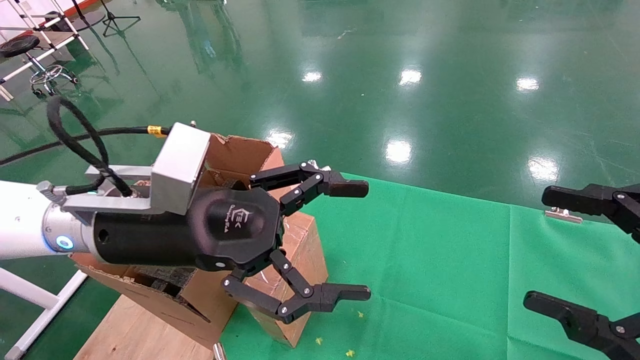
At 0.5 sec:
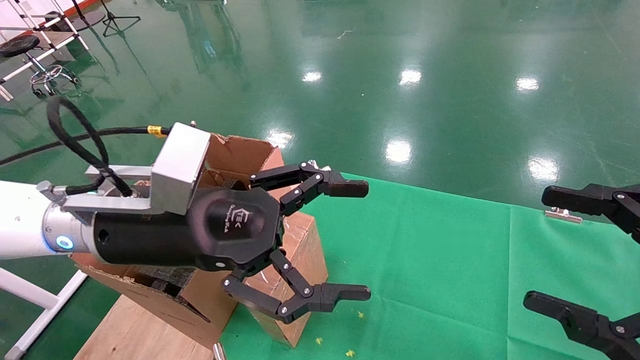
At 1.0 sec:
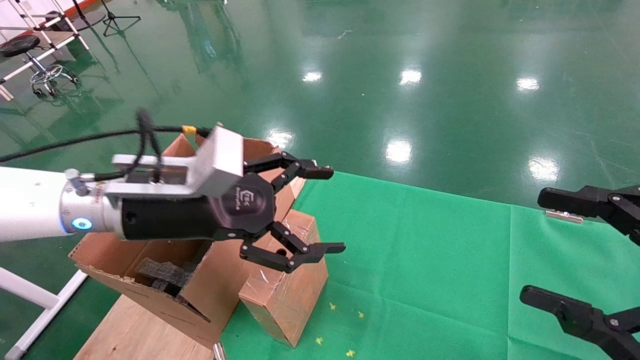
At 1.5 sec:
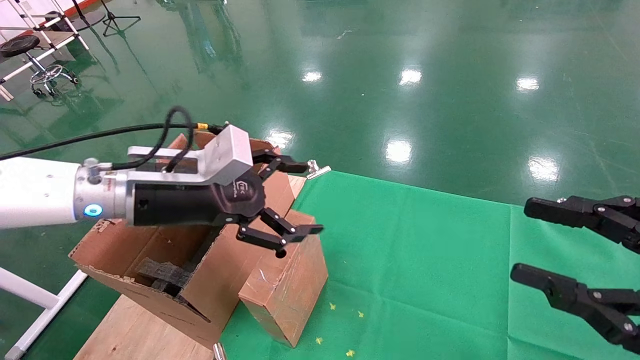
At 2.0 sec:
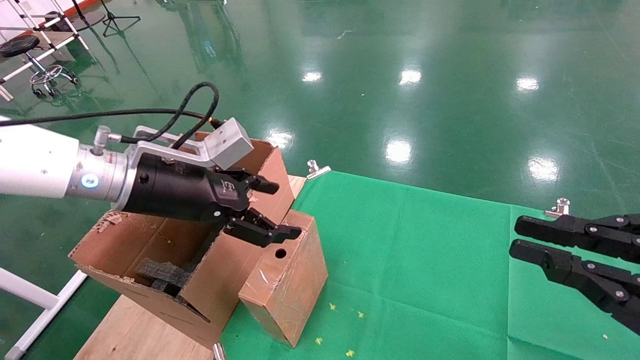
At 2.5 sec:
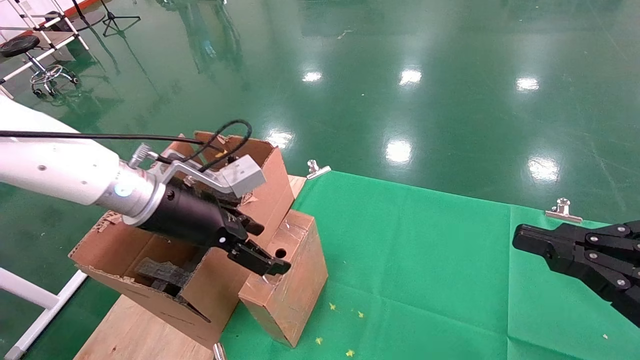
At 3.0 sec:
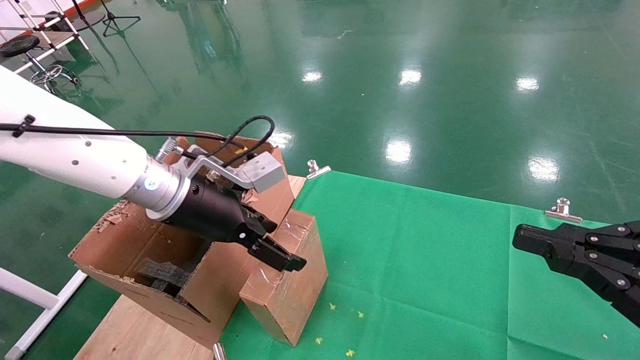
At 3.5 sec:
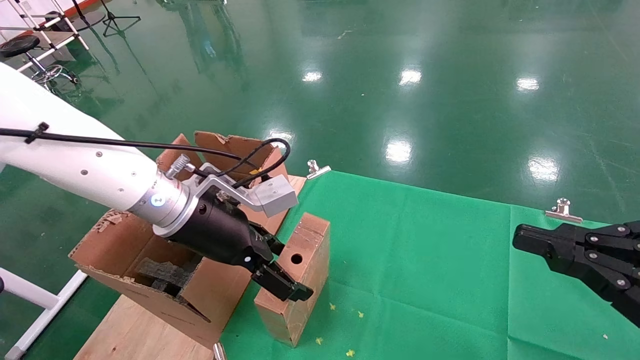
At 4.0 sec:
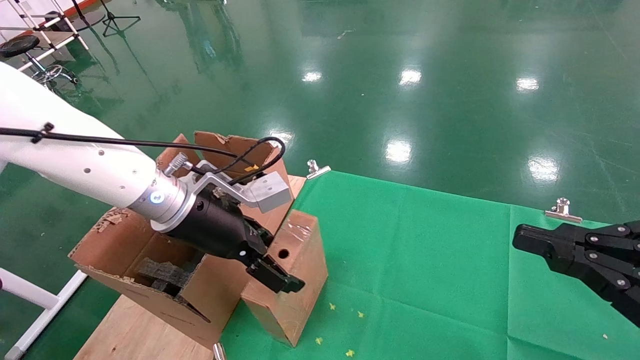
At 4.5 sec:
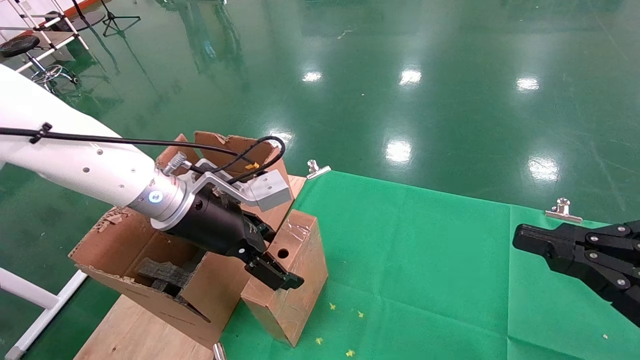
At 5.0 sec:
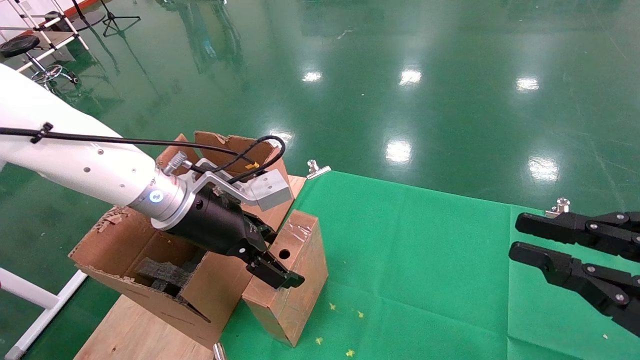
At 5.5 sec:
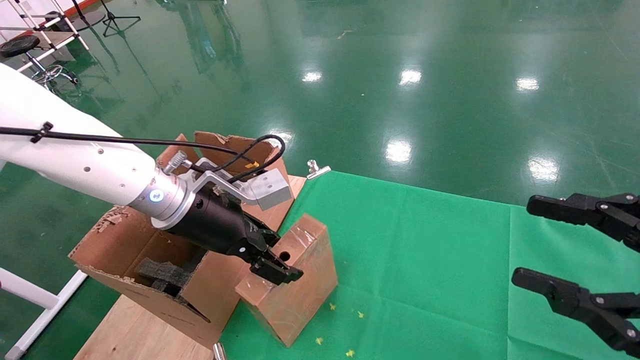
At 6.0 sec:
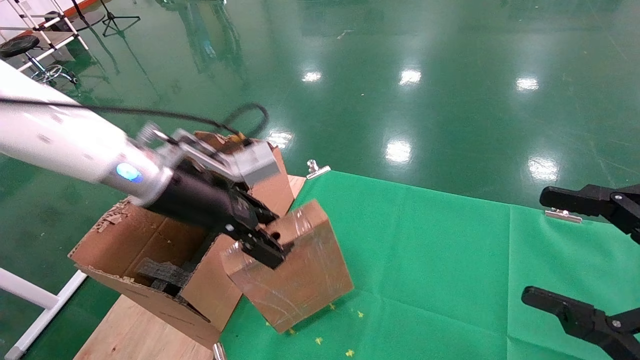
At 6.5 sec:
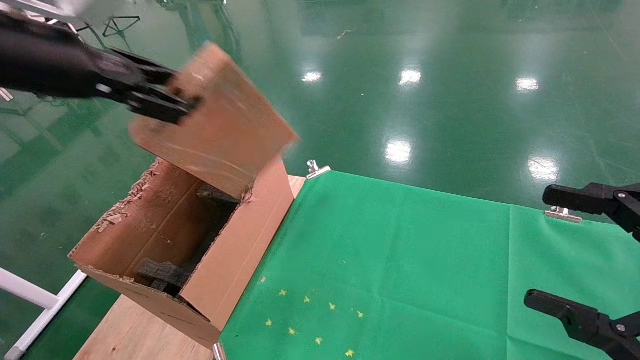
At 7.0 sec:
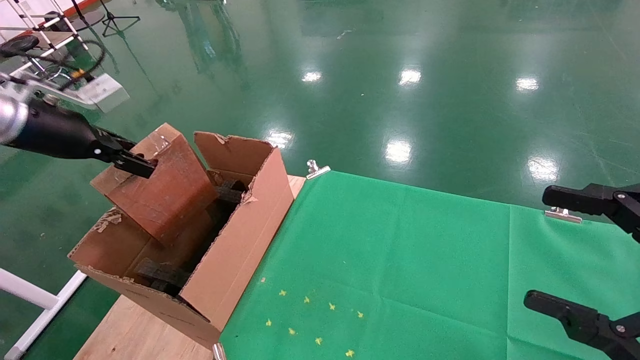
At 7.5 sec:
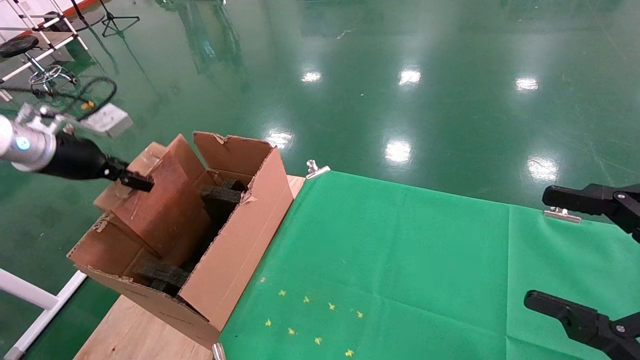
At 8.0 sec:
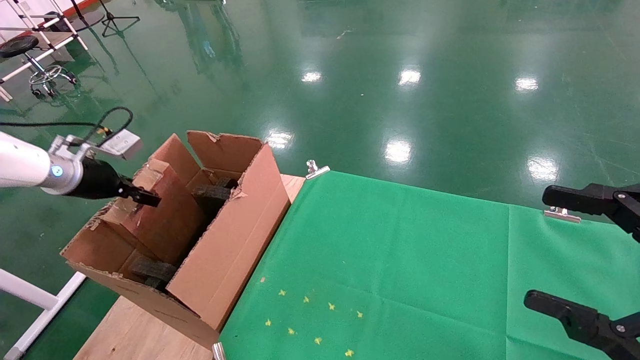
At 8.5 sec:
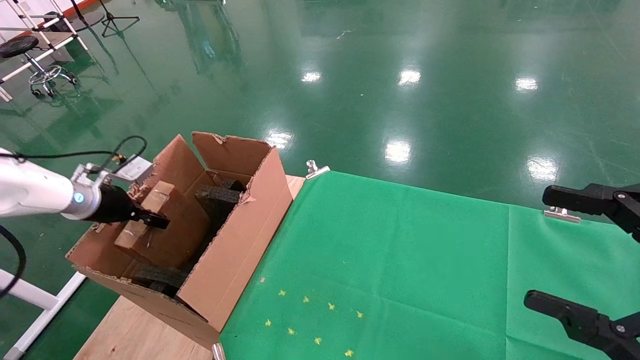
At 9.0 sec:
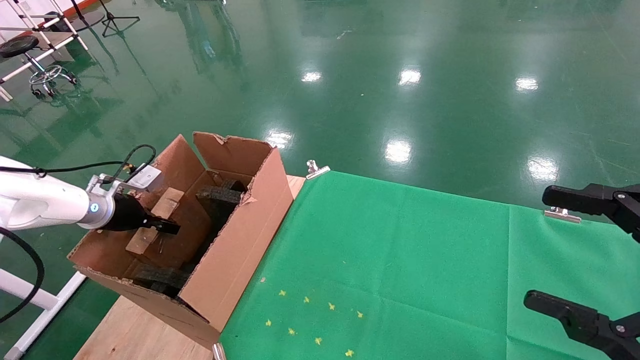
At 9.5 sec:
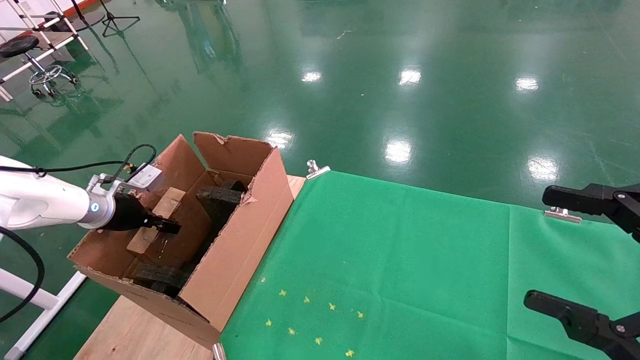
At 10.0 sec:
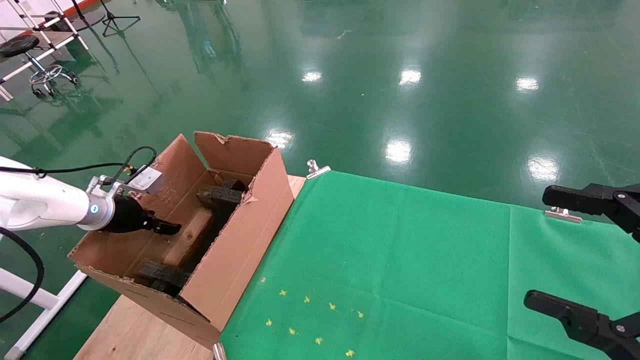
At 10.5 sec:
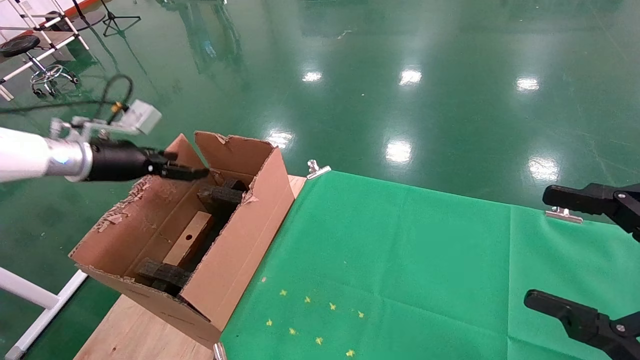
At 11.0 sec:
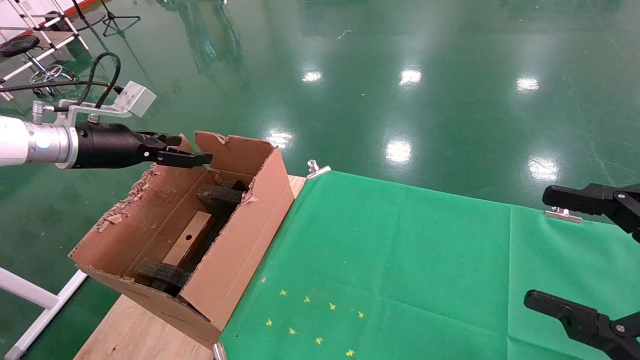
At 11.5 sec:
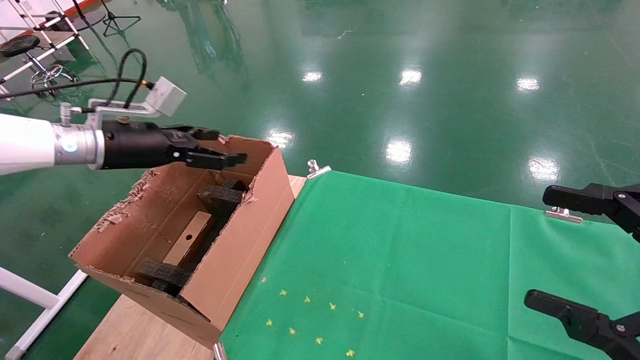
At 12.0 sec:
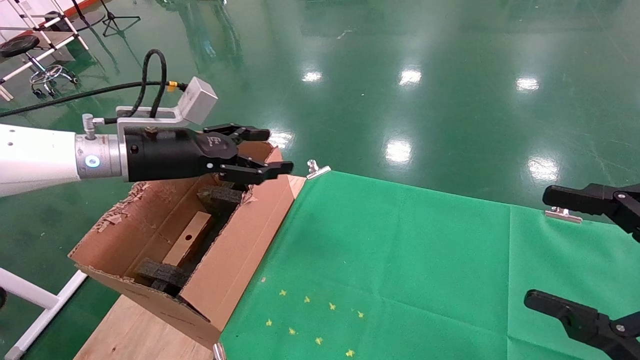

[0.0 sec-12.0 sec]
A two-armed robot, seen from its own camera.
Task of the whole recording: using a robotic arm to pick up a cardboard box and palace it the carton.
Step, 1.0 sec to 5.5 sec: Pick up the mouse and the power cord paper box.
Step, 6.0 sec to 10.5 sec: Place the mouse and the power cord paper box into the container.
0.0 sec to 2.0 sec: The right gripper closes up, while the left gripper moves forward, roughly 5 cm.
2.0 sec to 4.0 sec: The left gripper shifts by about 5 cm.
4.0 sec to 6.0 sec: The right gripper opens its fingers, while the left gripper moves upward, approximately 5 cm, and closes.
6.0 sec to 8.0 sec: The left gripper travels to the left by about 25 cm.
8.0 sec to 10.0 sec: The left gripper goes roughly 5 cm downward, and opens its fingers.
10.0 sec to 12.0 sec: The left gripper travels to the right and upward by some 20 cm, and opens its fingers.

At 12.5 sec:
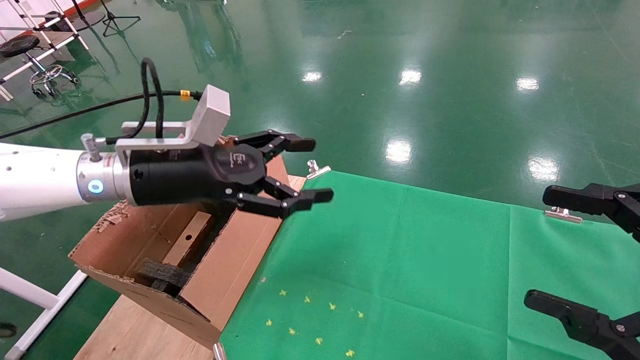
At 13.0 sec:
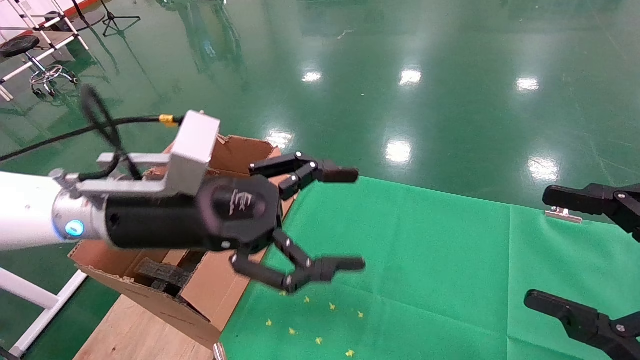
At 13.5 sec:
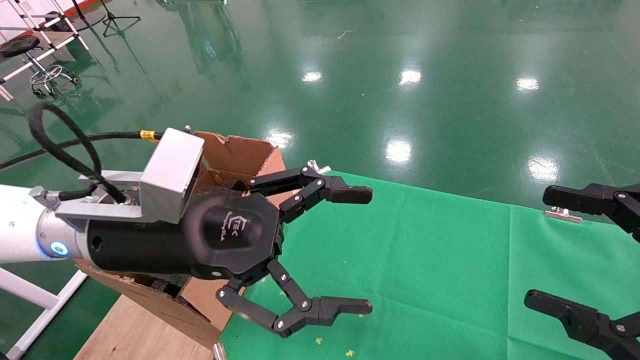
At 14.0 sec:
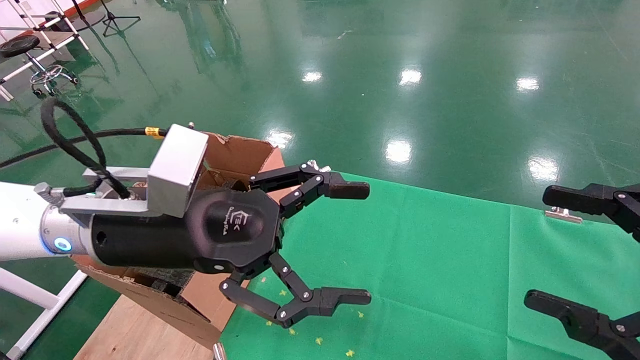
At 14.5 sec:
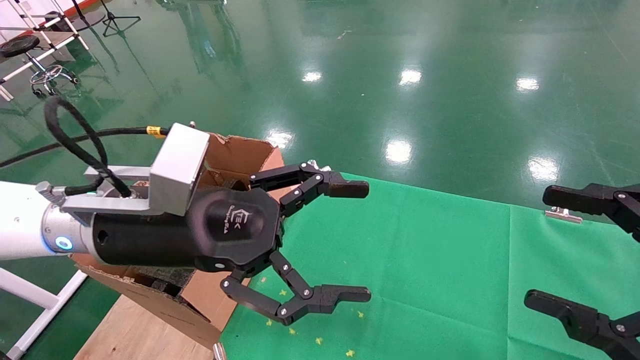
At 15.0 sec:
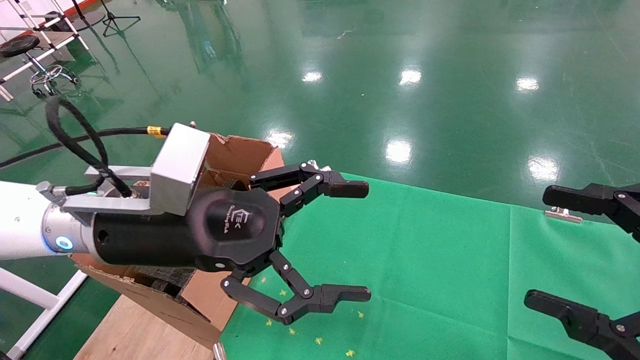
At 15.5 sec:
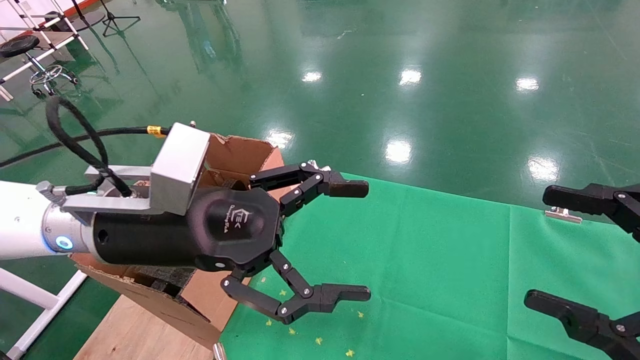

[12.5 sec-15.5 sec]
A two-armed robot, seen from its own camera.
Task of the whole recording: using a robotic arm to pick up a cardboard box and palace it the carton.
12.5 sec to 14.0 sec: The left gripper heads backward and to the right, covering roughly 10 cm.
14.0 sec to 15.5 sec: Both grippers stay about where they are.
